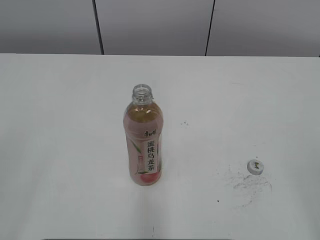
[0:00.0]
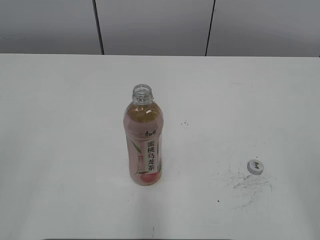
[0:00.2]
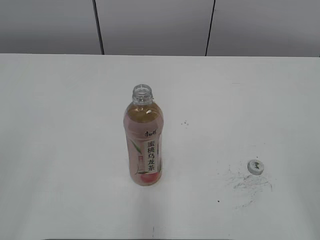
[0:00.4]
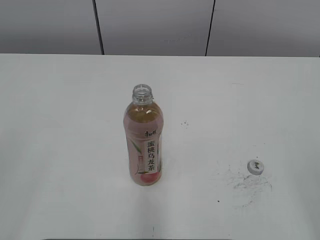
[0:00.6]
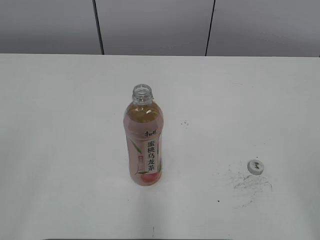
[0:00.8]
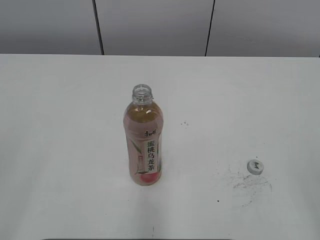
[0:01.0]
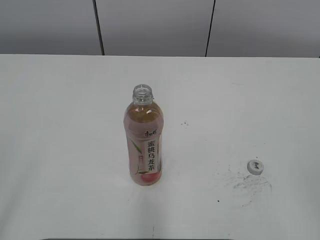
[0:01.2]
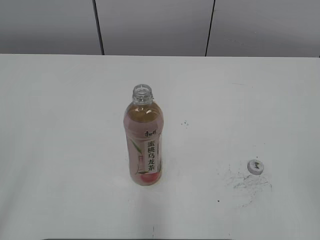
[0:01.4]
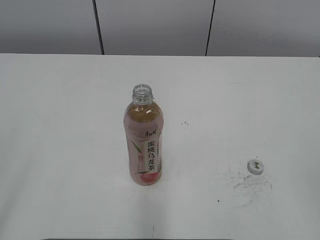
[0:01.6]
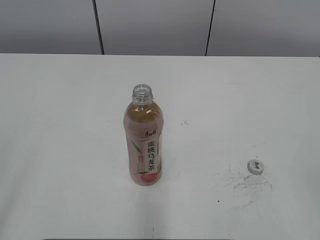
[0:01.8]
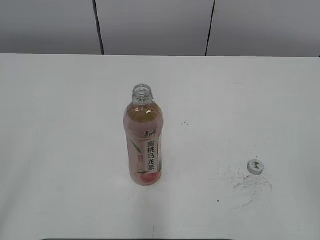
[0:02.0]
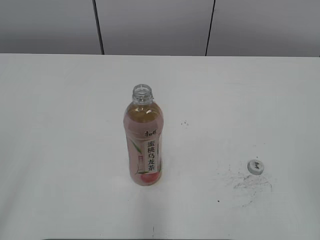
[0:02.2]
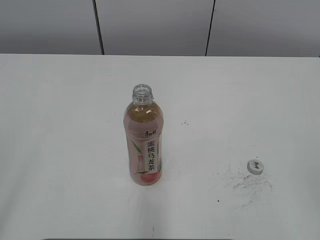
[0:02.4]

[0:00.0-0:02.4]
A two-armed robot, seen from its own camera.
0:01.2 to 0:02.4: Both grippers stay about where they are.

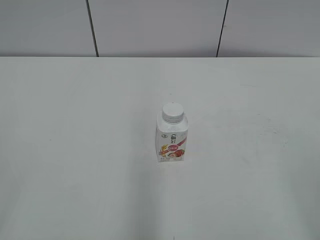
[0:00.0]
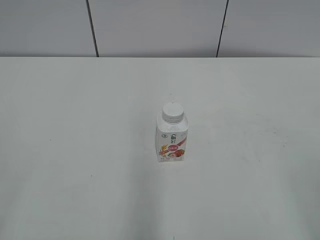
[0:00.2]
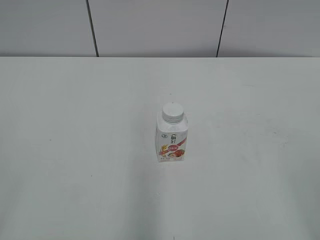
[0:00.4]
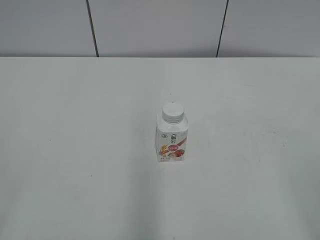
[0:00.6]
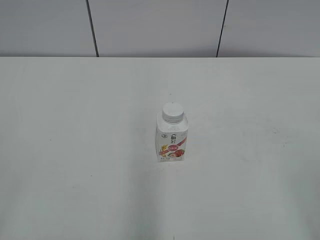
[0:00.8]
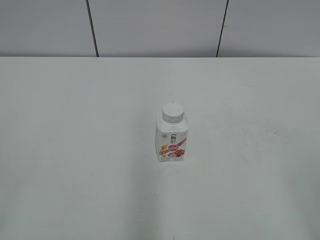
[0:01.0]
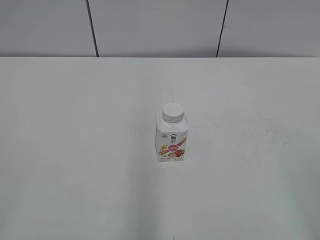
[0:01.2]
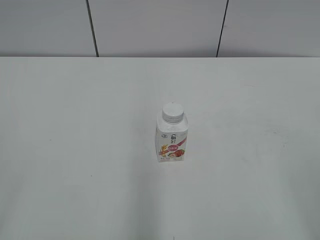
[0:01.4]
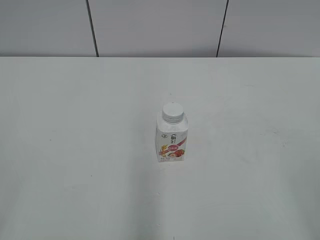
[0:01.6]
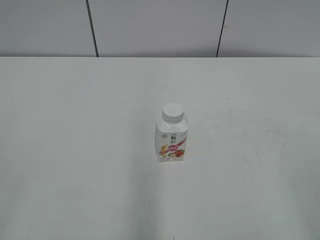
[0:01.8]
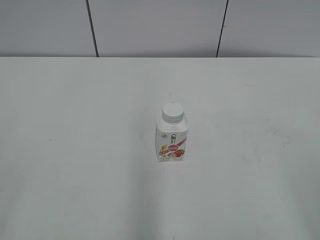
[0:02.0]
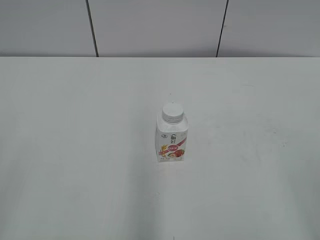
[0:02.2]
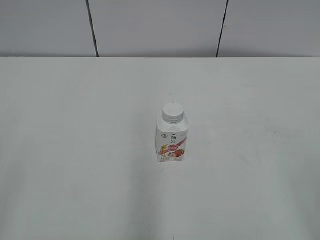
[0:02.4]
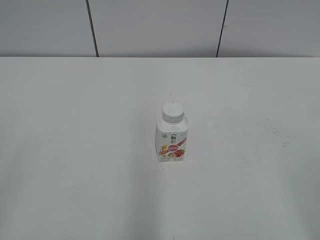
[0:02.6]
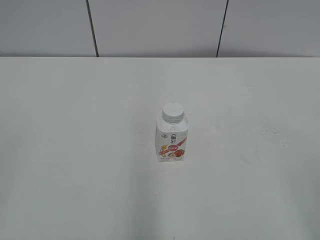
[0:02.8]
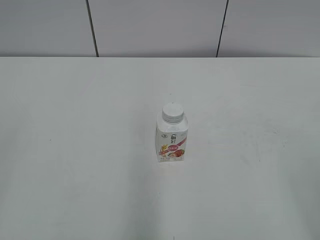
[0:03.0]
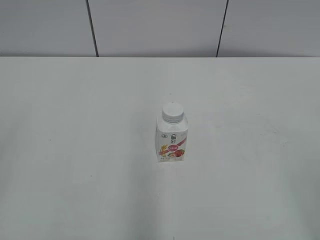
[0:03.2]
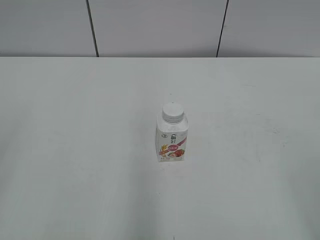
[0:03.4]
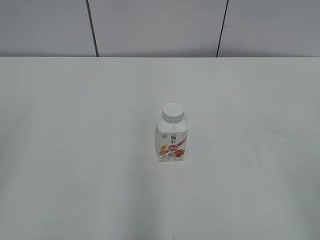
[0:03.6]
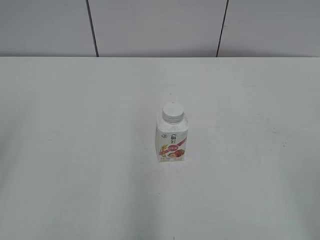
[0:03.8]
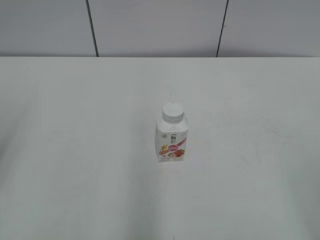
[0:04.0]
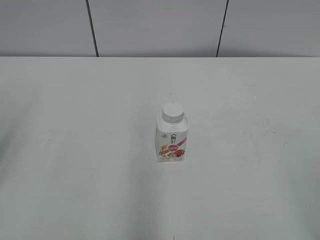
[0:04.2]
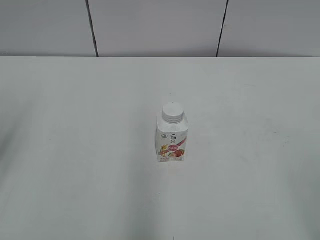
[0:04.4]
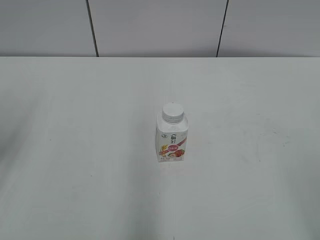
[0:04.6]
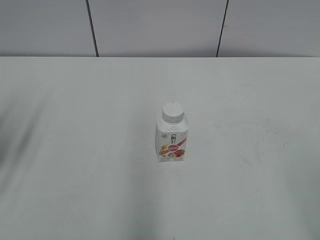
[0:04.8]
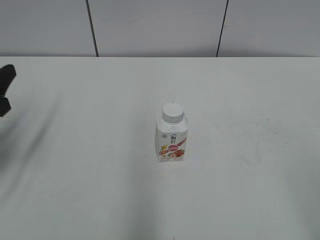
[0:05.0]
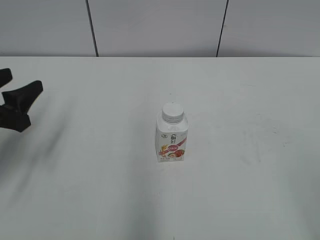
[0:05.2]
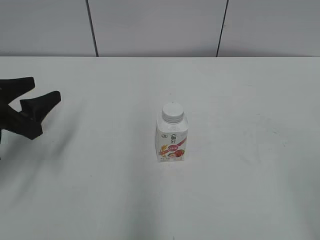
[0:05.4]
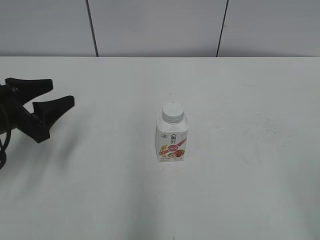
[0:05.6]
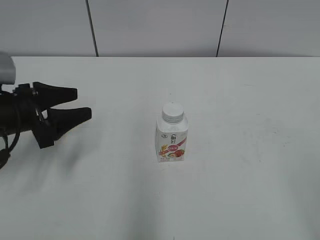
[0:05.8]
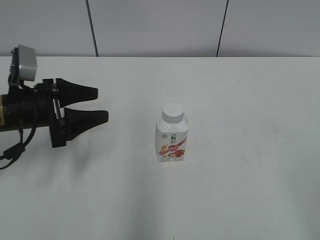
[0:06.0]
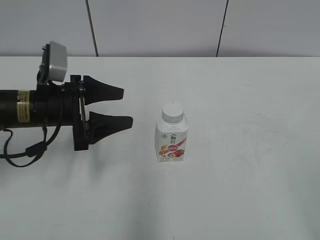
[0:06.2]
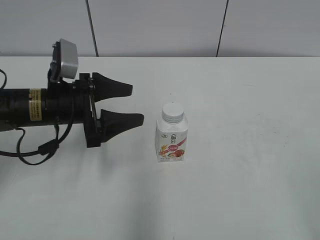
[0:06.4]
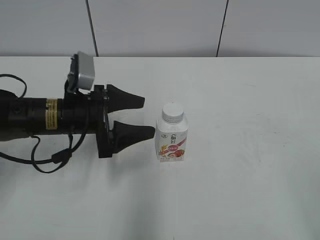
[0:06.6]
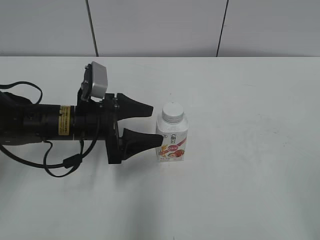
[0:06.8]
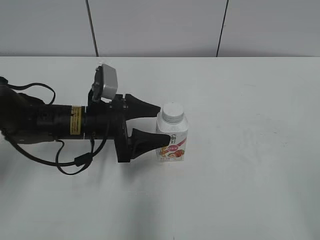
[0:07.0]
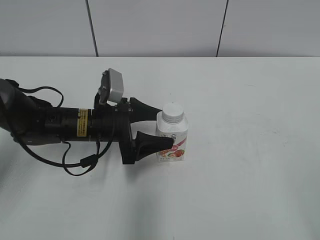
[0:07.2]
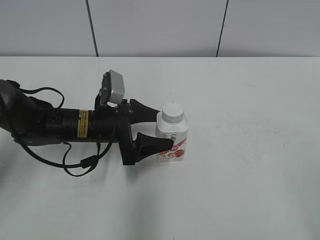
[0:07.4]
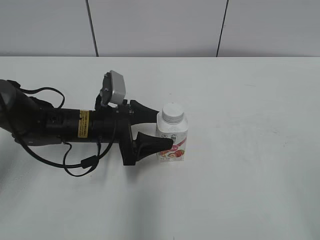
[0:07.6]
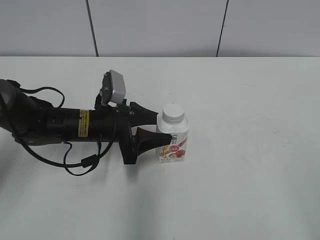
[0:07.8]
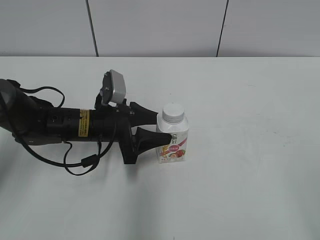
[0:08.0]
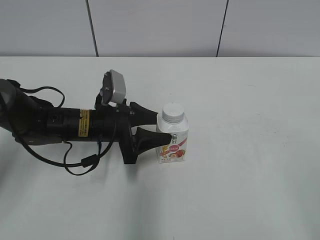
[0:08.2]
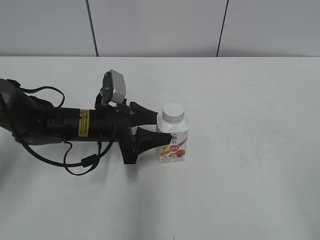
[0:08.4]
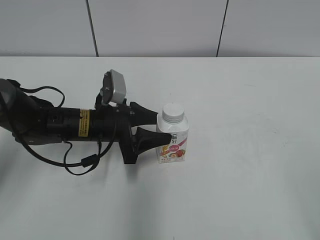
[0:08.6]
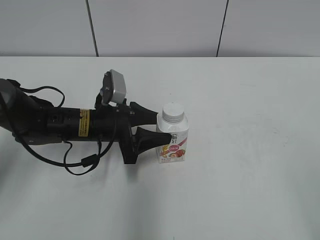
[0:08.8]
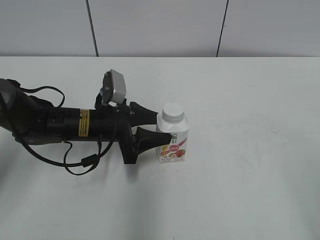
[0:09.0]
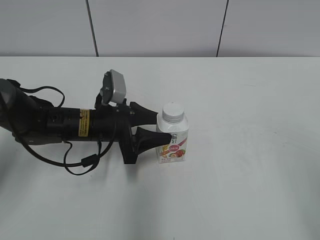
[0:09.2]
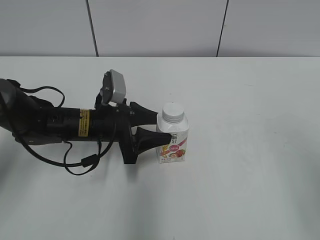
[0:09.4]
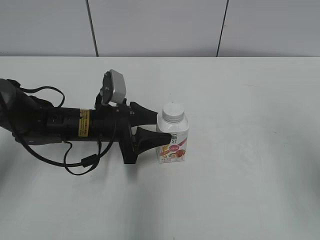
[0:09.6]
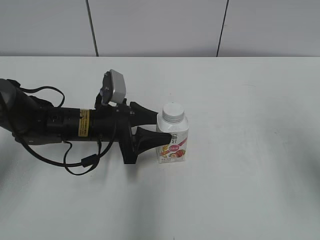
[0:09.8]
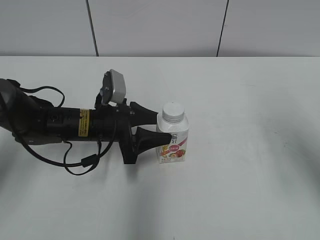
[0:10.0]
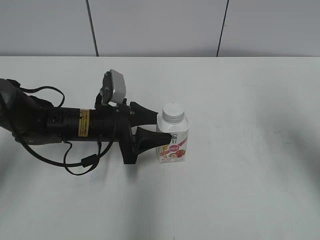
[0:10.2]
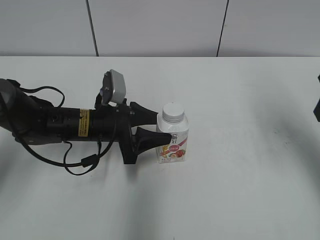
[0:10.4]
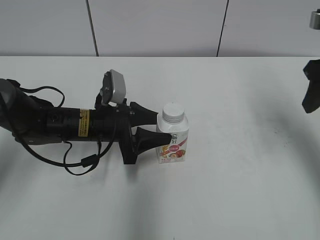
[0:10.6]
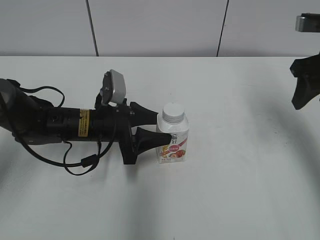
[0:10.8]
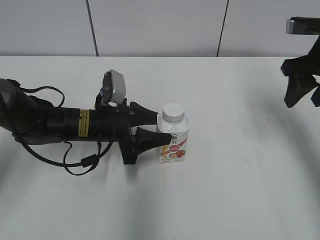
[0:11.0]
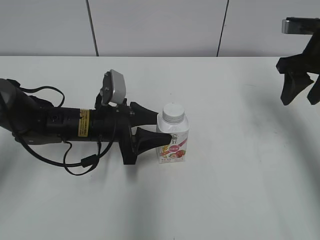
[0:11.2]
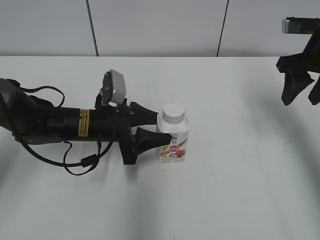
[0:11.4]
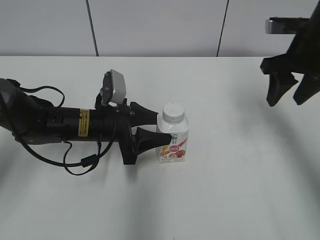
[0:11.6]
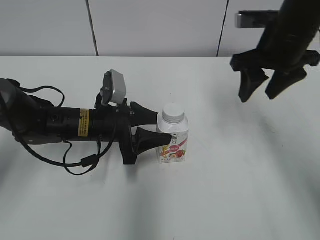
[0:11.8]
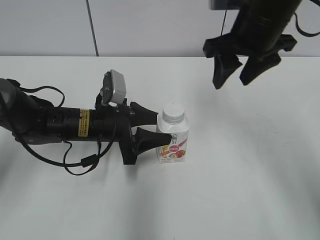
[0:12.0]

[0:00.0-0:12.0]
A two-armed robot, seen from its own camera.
Step, 0:00.0 to 0:07.8: Grab the Yili Changqing with the left hand.
0:04.4 to 0:06.0: The left gripper is displaced forward, downward and to the right by approximately 20 cm.
0:06.0 to 0:07.6: The left gripper is displaced to the right and downward by roughly 10 cm.
0:07.6 to 0:09.0: The grippers move only a little.
0:09.0 to 0:10.4: The right gripper heads forward, covering roughly 25 cm, and closes.
0:10.4 to 0:12.0: The right gripper is displaced to the left and forward by some 15 cm.

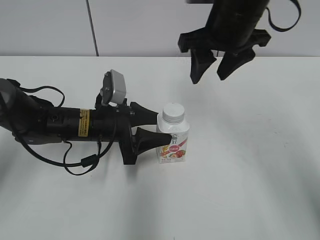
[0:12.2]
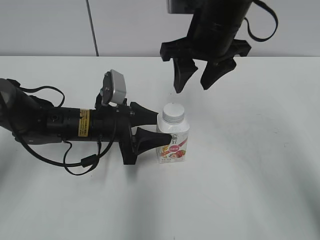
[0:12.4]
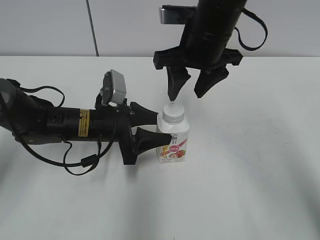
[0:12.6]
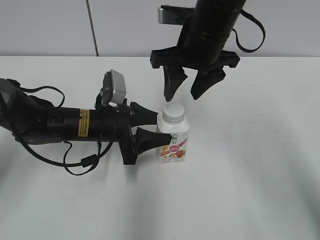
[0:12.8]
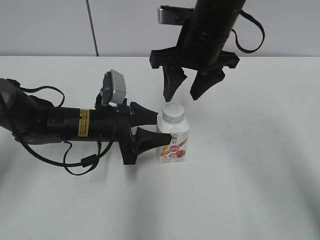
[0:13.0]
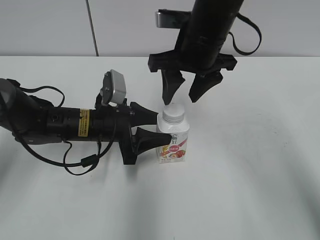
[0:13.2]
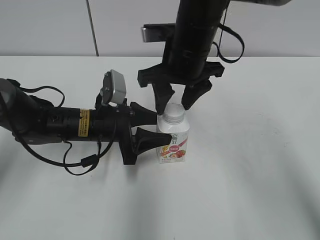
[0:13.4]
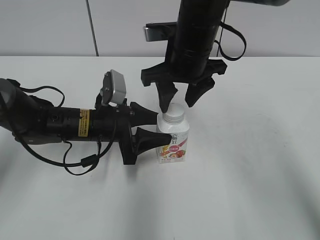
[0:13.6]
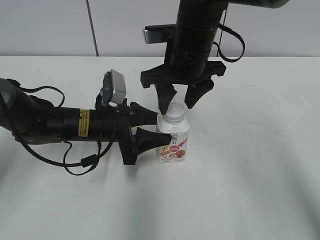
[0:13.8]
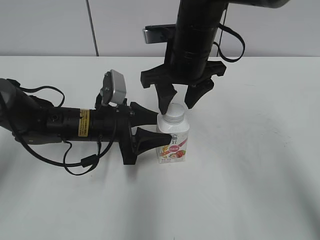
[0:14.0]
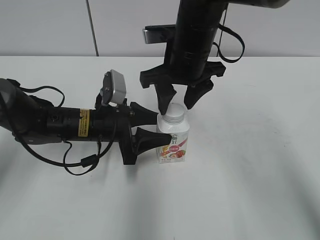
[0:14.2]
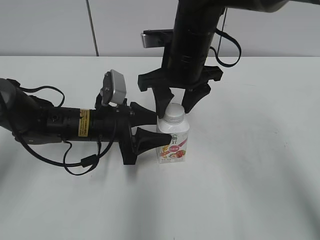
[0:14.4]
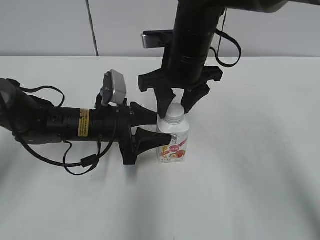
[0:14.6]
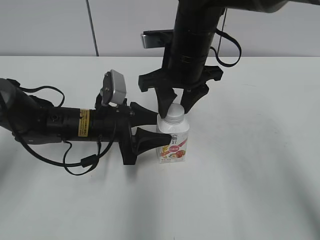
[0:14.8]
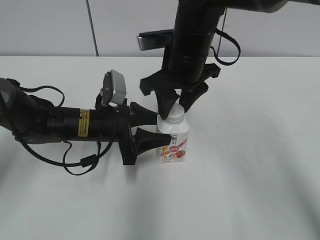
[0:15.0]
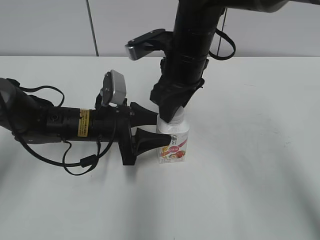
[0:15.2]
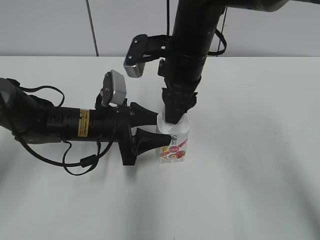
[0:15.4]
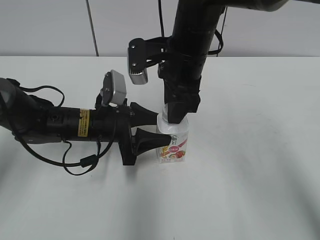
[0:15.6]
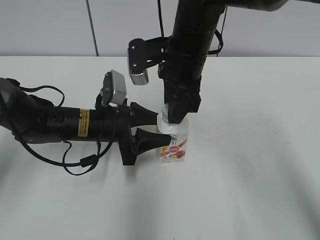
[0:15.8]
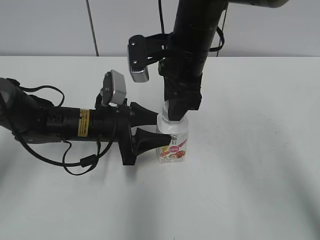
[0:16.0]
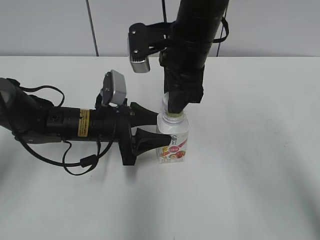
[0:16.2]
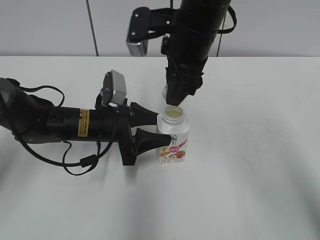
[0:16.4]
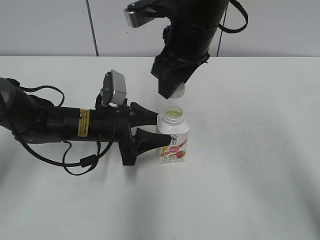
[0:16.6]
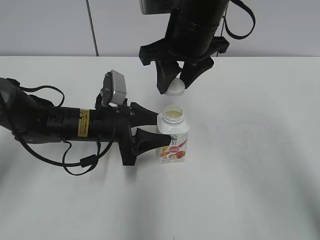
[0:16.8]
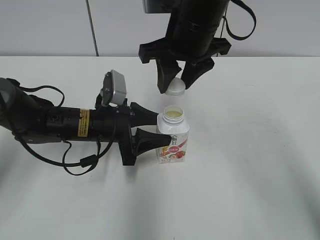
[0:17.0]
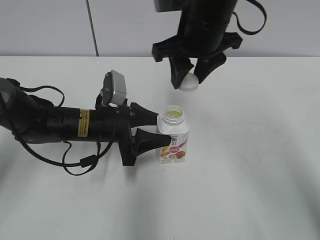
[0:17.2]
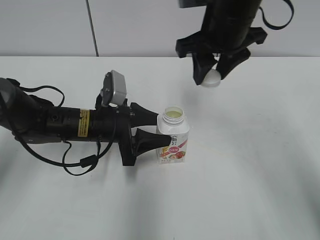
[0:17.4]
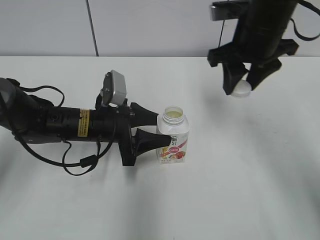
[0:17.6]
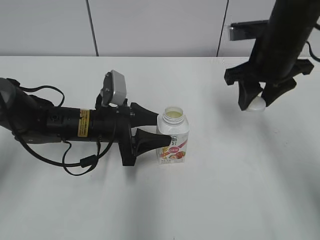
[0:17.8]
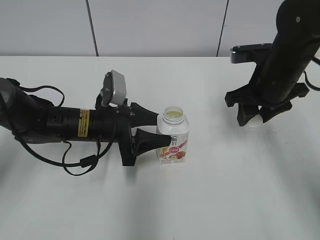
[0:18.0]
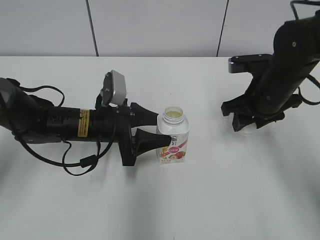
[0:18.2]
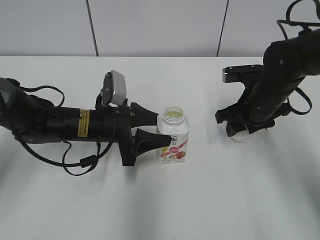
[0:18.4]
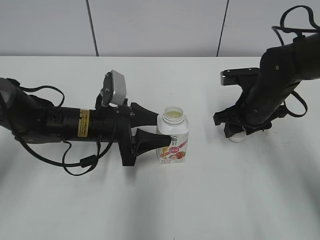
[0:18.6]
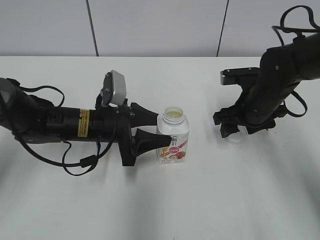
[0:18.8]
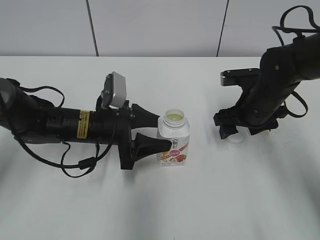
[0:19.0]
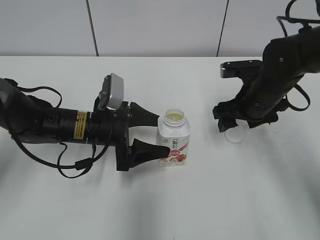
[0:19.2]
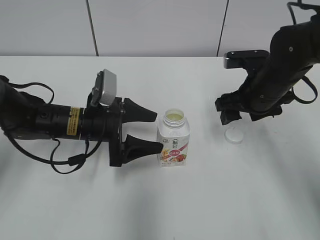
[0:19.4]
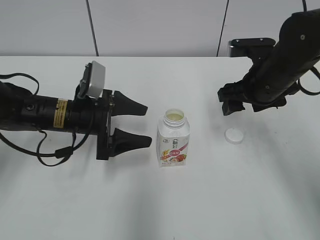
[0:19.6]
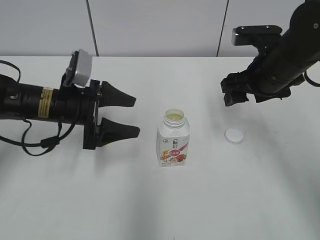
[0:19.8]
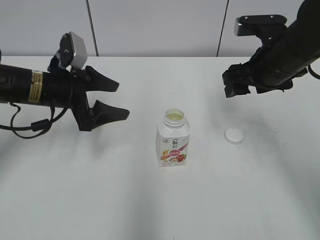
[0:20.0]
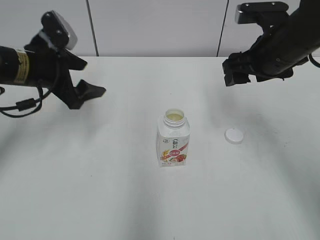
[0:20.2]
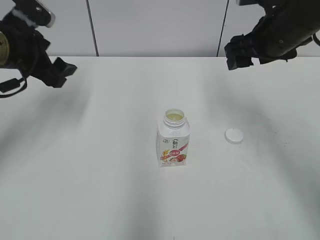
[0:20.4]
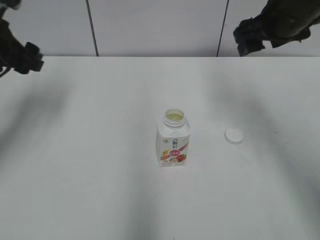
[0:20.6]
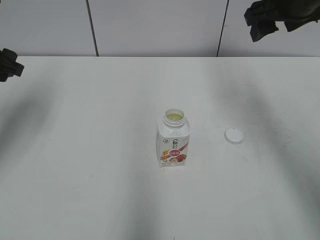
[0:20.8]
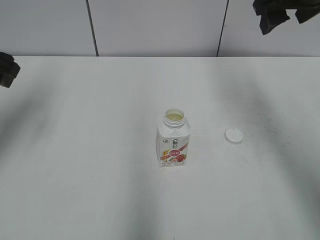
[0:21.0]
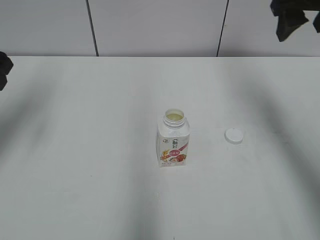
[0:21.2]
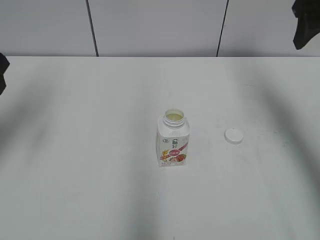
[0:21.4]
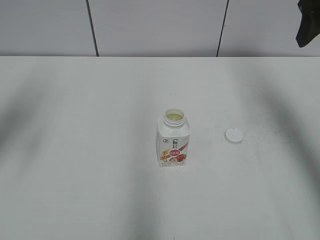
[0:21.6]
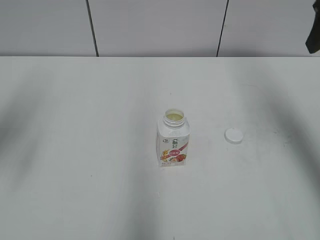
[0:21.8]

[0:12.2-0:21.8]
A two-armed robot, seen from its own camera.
Step, 0:16.0 to 0:18.6: Place the bottle cap on the right.
0:12.2 to 0:13.8: The right gripper goes roughly 10 cm to the left and downward.
0:13.8 to 0:15.4: The right gripper closes.
0:15.4 to 0:17.0: The right gripper is displaced upward by roughly 5 cm.
0:17.0 to 0:18.6: The right gripper travels downward and to the right by some 20 cm.
0:18.6 to 0:20.2: The left gripper heads upward and to the left, covering roughly 15 cm, and opens its fingers. Meanwhile the right gripper shifts about 10 cm upward, and opens.
0:20.2 to 0:21.8: The right gripper shifts roughly 15 cm upward and to the right, while the left gripper is displaced backward, upward and to the left by roughly 20 cm.
